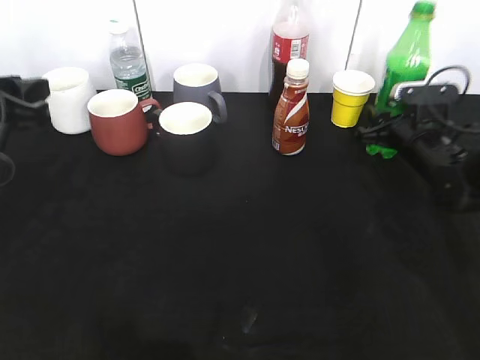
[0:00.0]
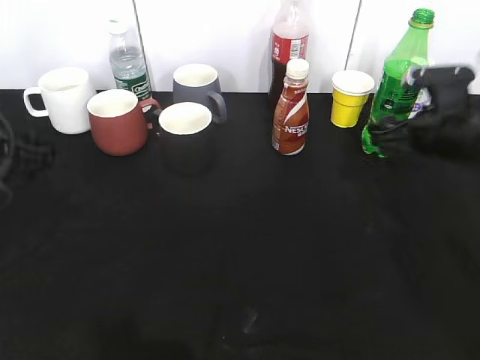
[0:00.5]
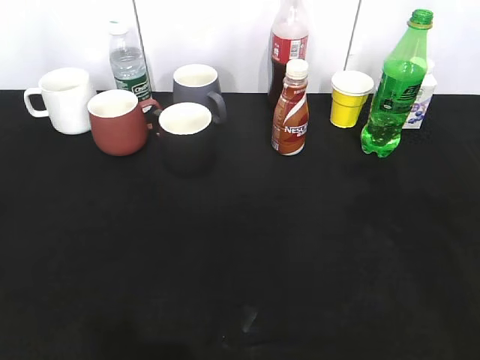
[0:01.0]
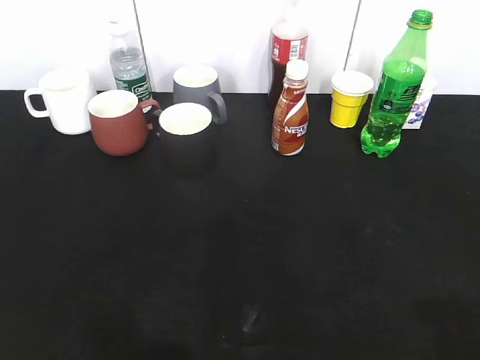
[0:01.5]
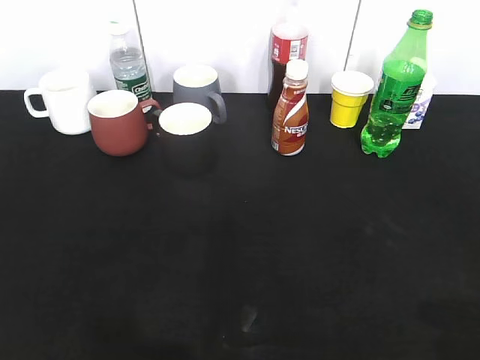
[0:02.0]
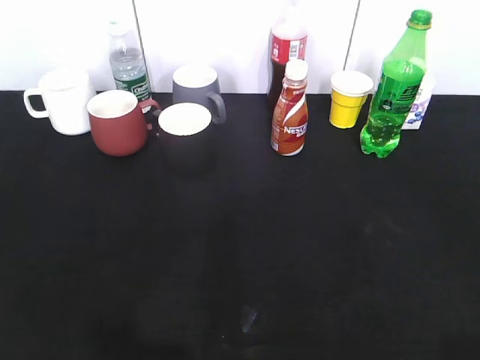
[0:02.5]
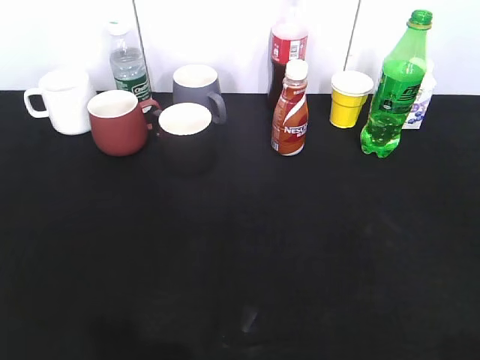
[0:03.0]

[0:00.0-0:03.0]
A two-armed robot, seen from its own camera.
0:00.0 to 0:01.5: The right gripper is displaced backward and upward by roughly 40 cm, and opens; the left gripper goes approximately 25 cm backward.
